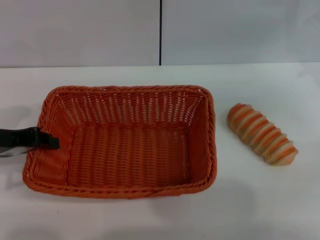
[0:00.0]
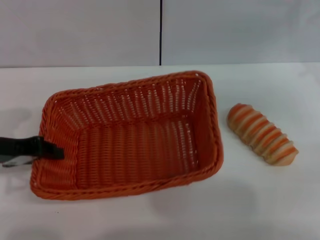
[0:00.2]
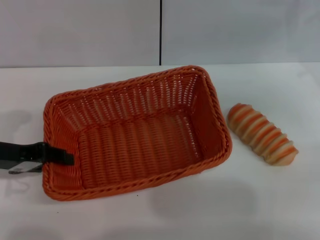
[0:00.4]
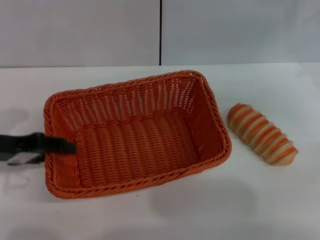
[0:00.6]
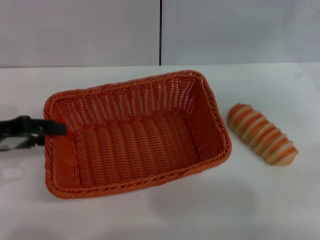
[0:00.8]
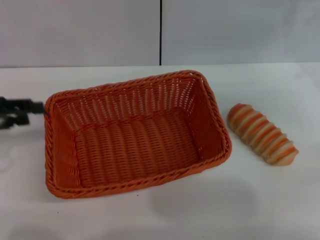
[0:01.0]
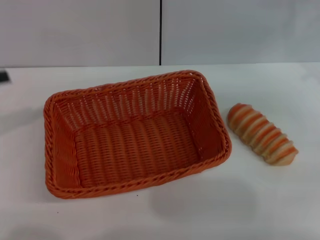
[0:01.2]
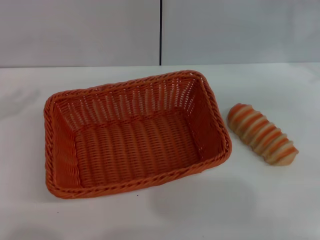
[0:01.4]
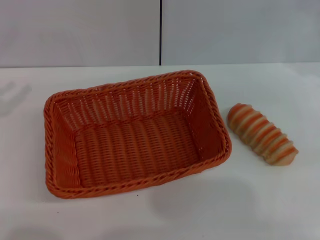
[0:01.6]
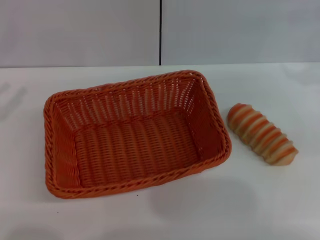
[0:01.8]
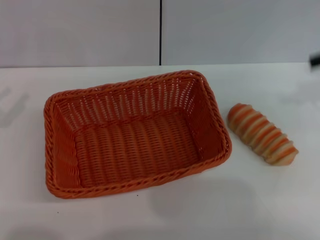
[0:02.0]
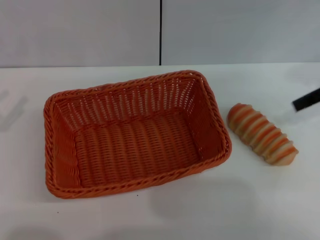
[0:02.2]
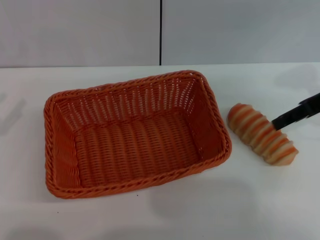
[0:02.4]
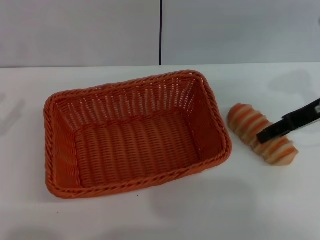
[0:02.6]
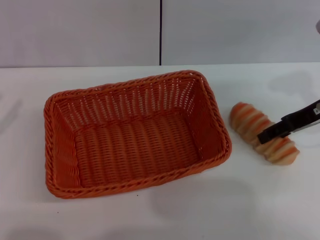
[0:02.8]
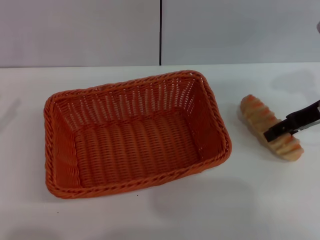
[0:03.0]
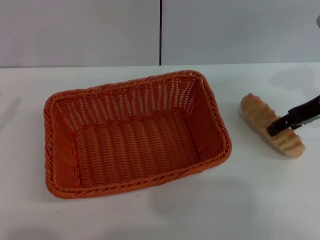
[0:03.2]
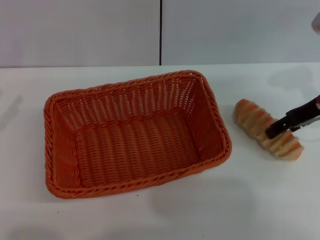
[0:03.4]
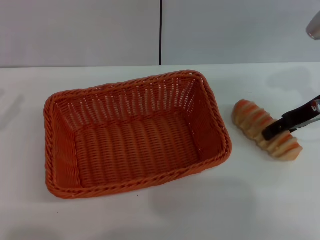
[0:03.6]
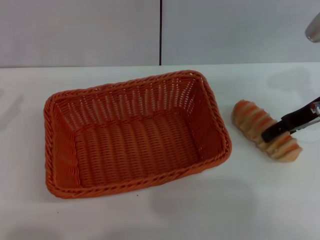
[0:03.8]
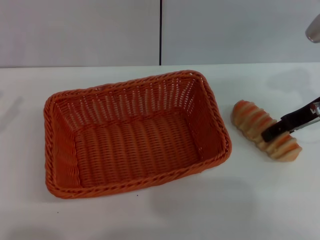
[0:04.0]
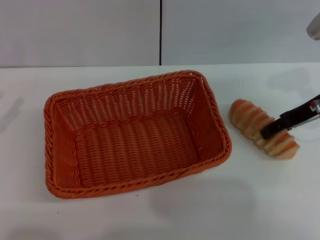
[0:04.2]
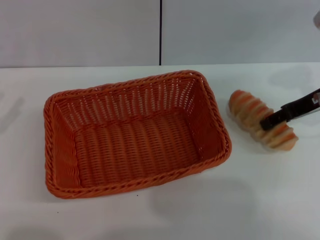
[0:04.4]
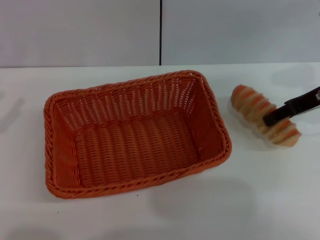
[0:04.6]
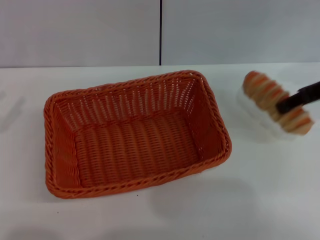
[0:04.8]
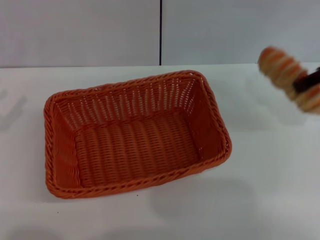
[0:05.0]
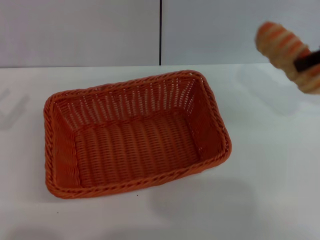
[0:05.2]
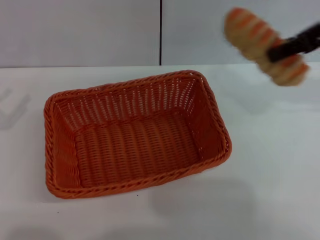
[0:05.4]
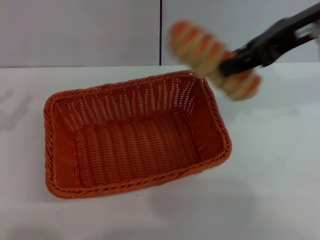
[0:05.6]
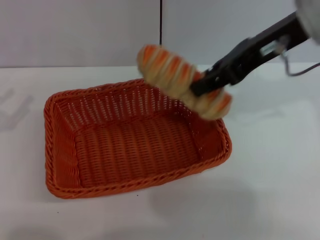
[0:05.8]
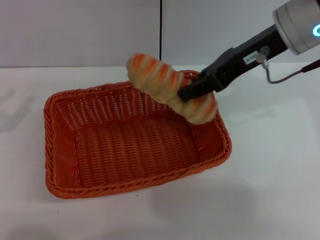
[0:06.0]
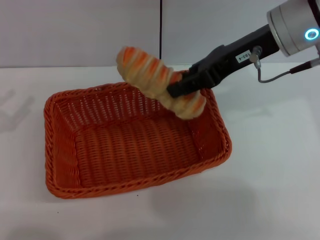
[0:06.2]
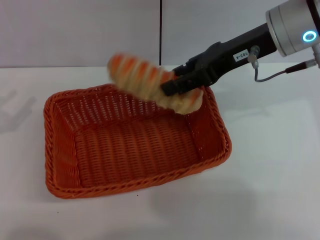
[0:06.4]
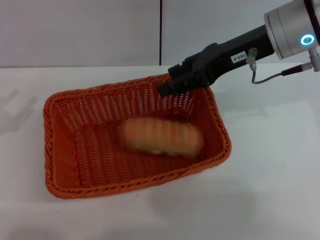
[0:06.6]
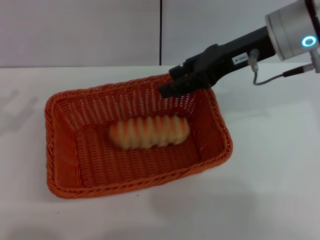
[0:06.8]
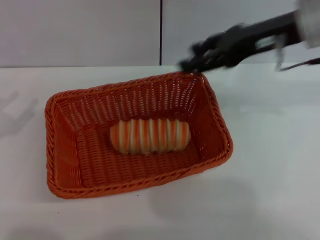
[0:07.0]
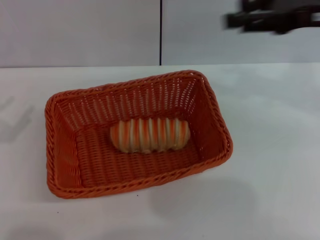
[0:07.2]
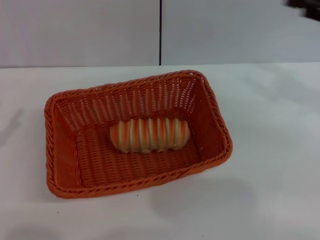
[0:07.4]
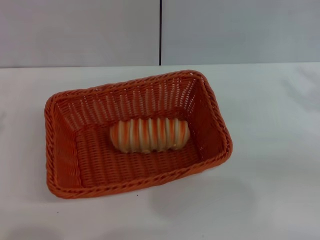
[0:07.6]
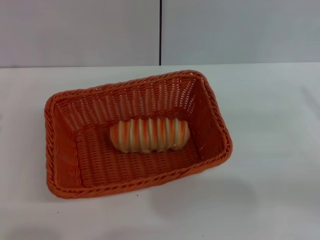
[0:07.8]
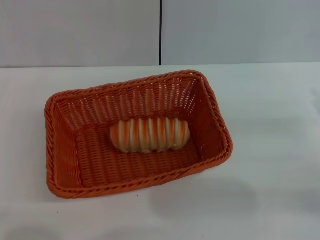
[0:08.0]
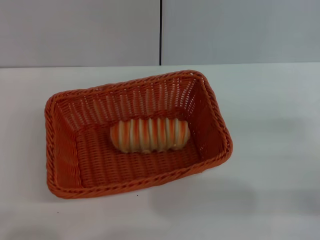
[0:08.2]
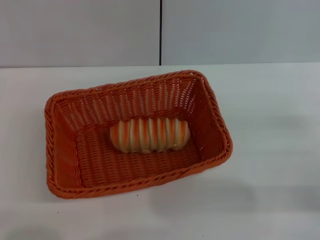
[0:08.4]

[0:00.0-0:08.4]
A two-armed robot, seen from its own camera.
Step, 0:01.2 to 0:05.0: Pick up the long bread with the right gripper.
Step, 0:05.2 to 0:07.4: Place the long bread into the light basket with the right gripper.
0:00.0 to 0:01.4: The left gripper goes roughly 10 cm to the left, and opens its fingers.
0:01.4 to 0:02.8: The right gripper is displaced to the left by about 10 cm, and goes upward and returns, some 10 cm each way.
0:02.8 to 0:04.2: The grippers move only a little.
0:04.2 to 0:05.6: The right gripper travels upward and to the left by some 15 cm, and closes up.
0:05.6 to 0:07.0: The right gripper moves roughly 5 cm, and opens.
0:07.0 to 0:08.4: The left gripper goes some 10 cm downward and backward, while the right gripper travels downward, to the right and backward by roughly 25 cm.

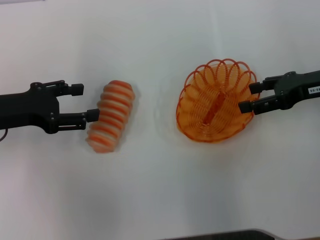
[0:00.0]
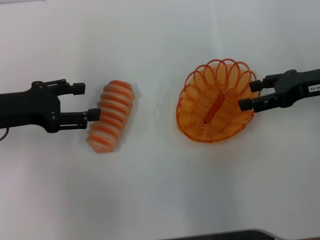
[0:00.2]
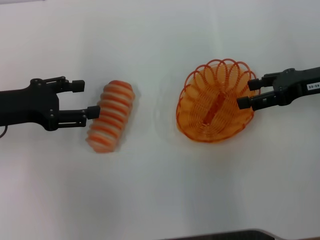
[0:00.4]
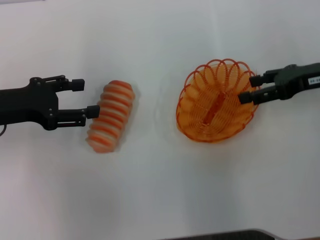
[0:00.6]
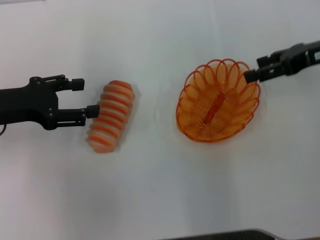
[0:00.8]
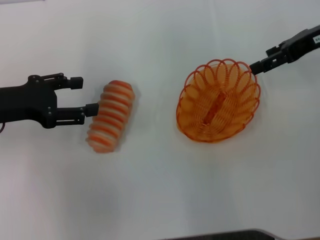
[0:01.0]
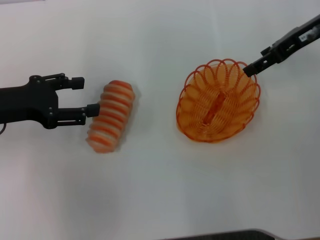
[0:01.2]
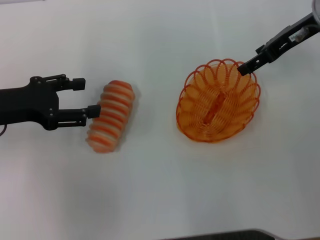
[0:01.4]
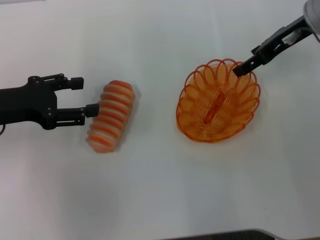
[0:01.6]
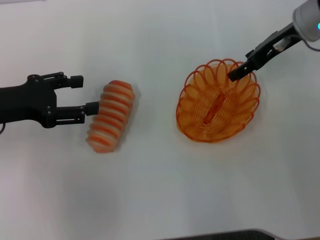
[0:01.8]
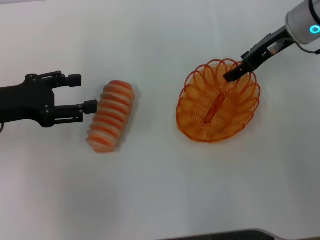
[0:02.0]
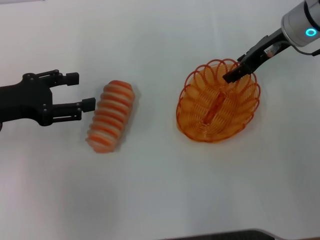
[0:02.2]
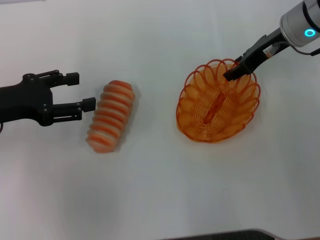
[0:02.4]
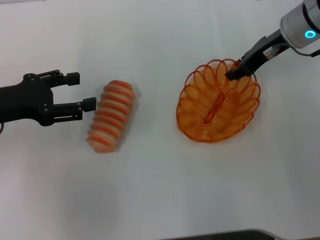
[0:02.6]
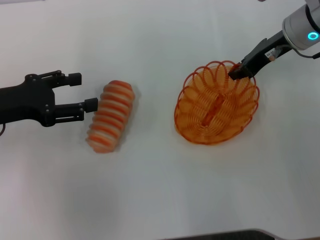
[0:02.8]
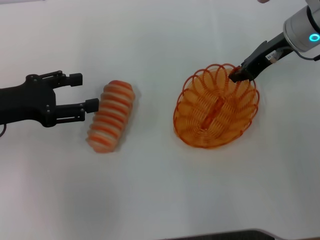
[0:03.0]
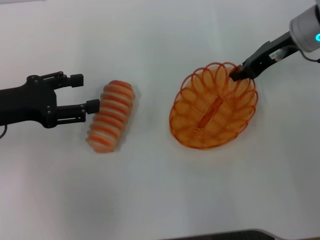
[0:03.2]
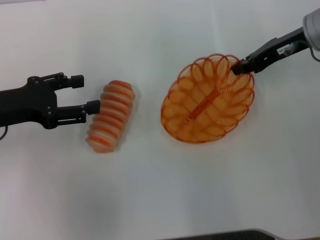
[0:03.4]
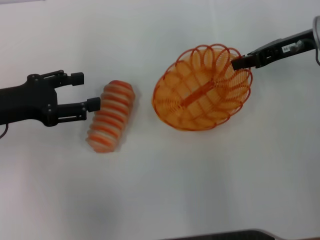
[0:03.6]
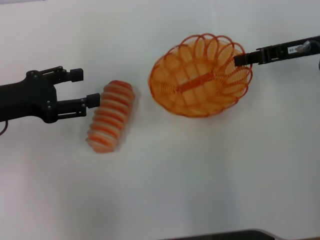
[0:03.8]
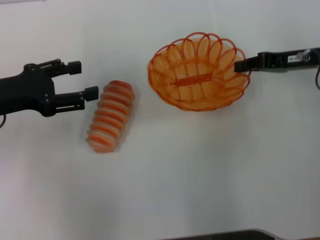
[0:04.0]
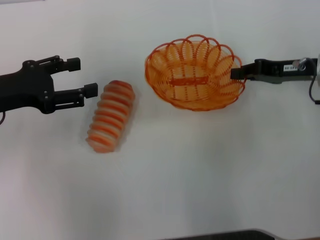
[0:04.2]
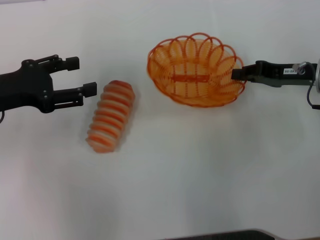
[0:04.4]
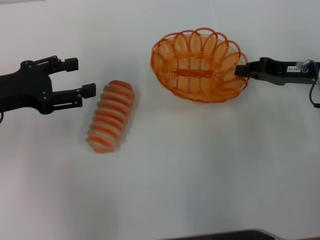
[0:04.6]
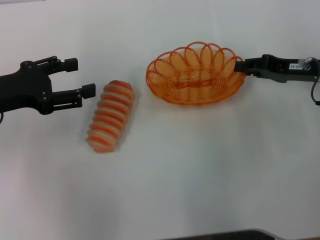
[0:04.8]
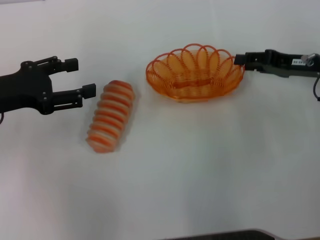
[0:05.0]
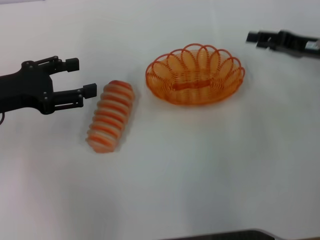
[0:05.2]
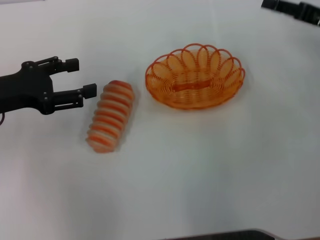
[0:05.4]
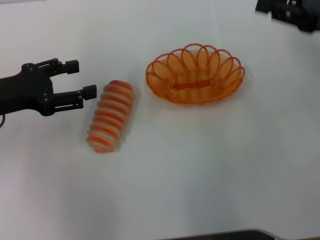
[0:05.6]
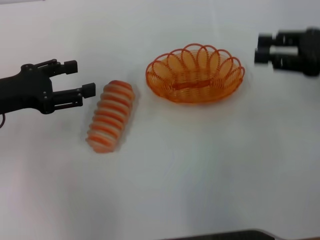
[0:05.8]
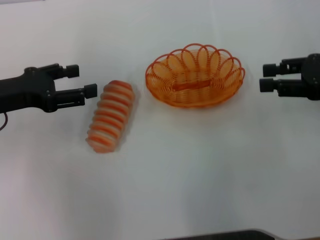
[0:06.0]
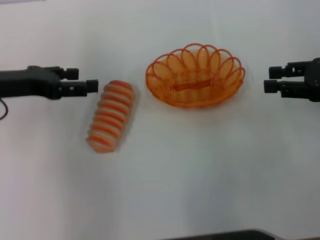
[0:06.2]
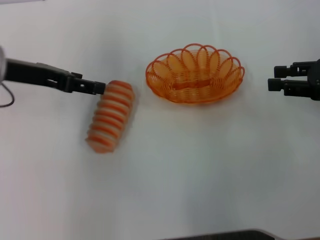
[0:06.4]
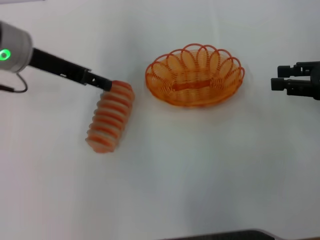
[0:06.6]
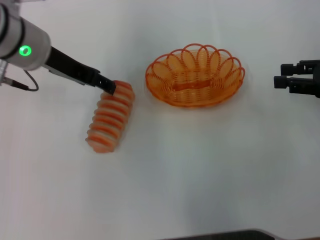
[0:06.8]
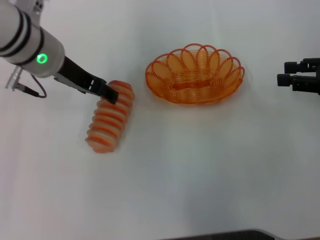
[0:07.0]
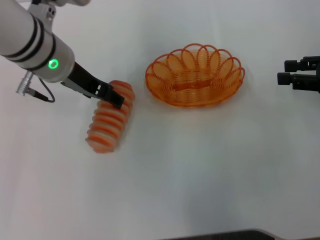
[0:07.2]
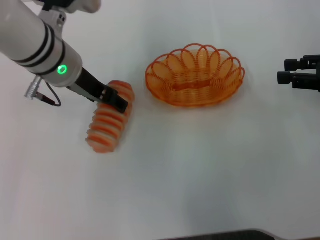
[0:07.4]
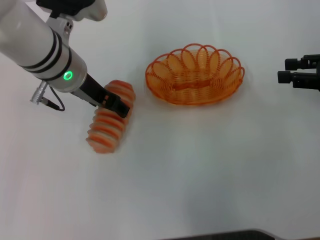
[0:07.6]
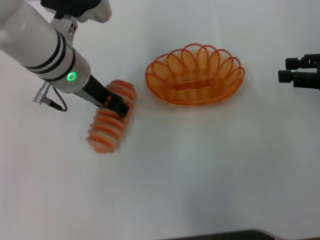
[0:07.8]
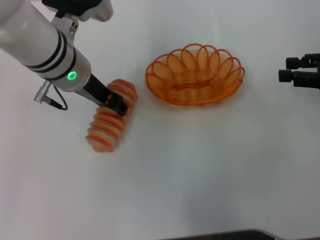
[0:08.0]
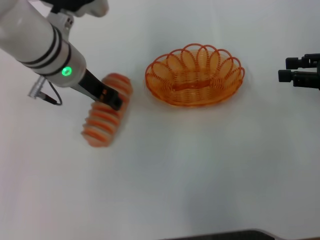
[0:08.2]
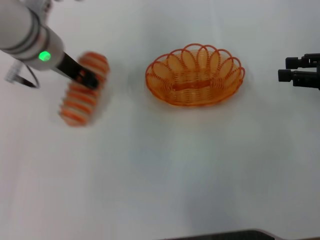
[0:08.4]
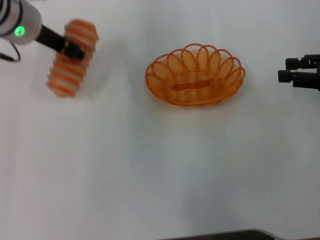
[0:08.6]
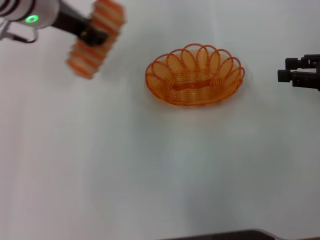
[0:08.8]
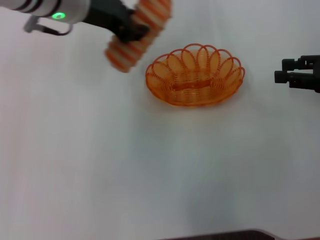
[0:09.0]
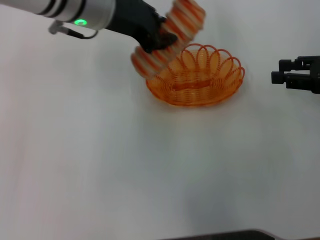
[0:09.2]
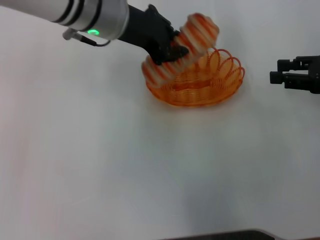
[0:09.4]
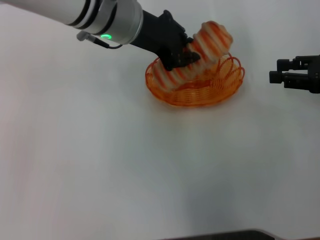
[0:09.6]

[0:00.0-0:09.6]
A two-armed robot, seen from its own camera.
Step, 0:00.0 to 0:03.6: Pick up the basket with the right gripper.
Step, 0:04.0 to 0:05.8: Place the basket in the center of view with the right gripper.
Step, 0:06.0 to 0:08.6: Pick up the long bread with the left gripper.
0:00.0 to 0:01.6: The right gripper travels forward, to the left and upward by about 10 cm.
0:01.6 to 0:03.2: The right gripper closes its fingers.
0:03.2 to 0:04.8: The right gripper shifts approximately 10 cm backward, downward and to the right.
0:04.8 to 0:06.4: The right gripper shifts some 5 cm to the right, and opens up, while the left gripper is displaced forward by approximately 5 cm.
0:06.4 to 0:08.0: The left gripper shifts some 10 cm to the right.
0:08.0 to 0:09.6: The left gripper heads to the right, covering about 5 cm, and closes.

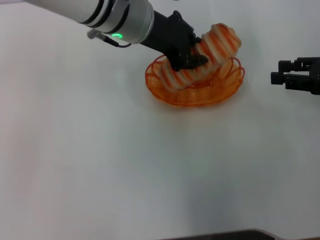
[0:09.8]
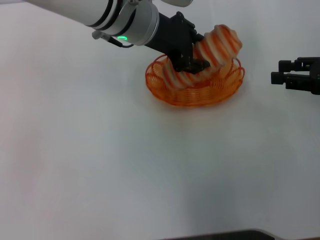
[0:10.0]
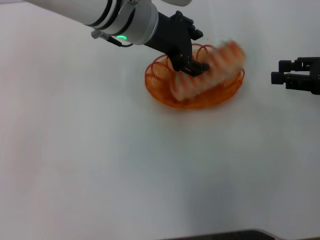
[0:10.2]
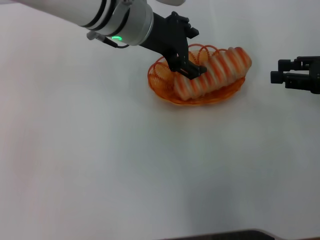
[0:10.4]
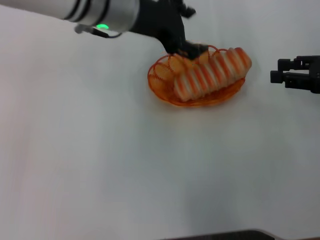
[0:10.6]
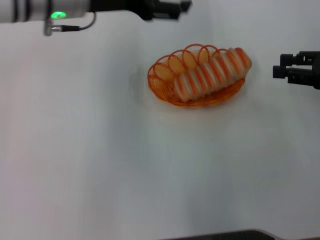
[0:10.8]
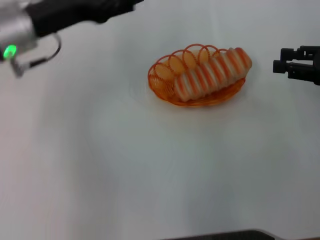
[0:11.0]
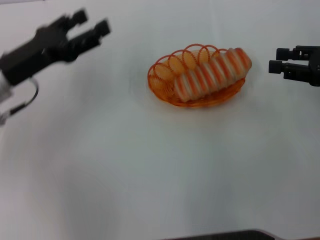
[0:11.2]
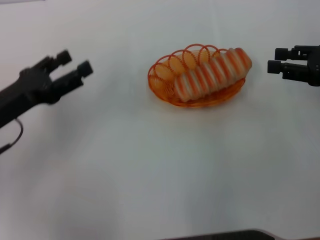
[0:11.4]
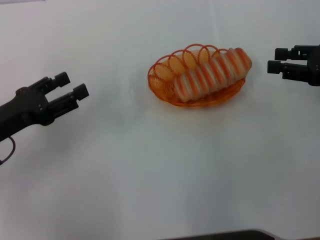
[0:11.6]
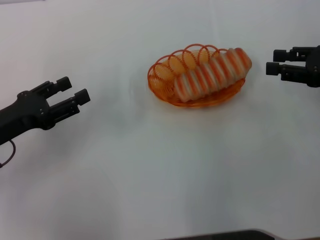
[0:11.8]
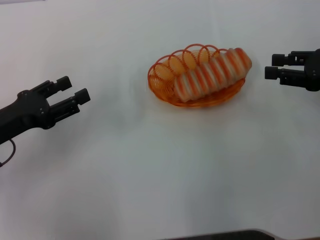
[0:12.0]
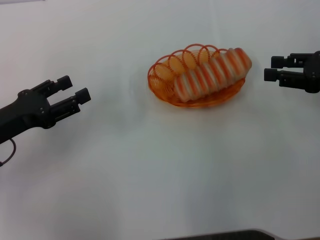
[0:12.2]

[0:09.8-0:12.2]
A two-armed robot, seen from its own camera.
0:09.8 to 0:11.0: The left gripper goes approximately 15 cm to the left, and opens its fingers.
0:11.0 to 0:12.2: The left gripper travels backward, to the left and downward by some 15 cm.
